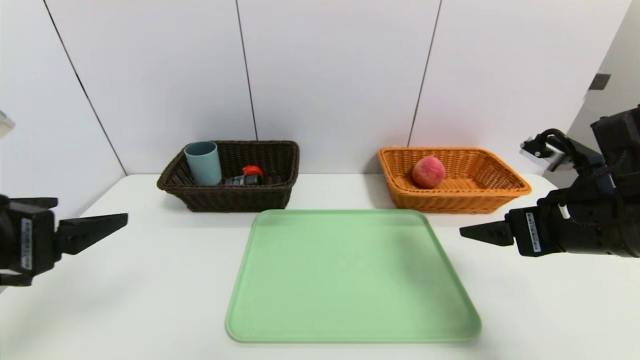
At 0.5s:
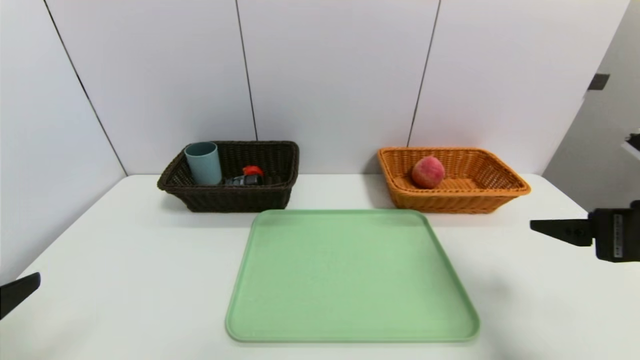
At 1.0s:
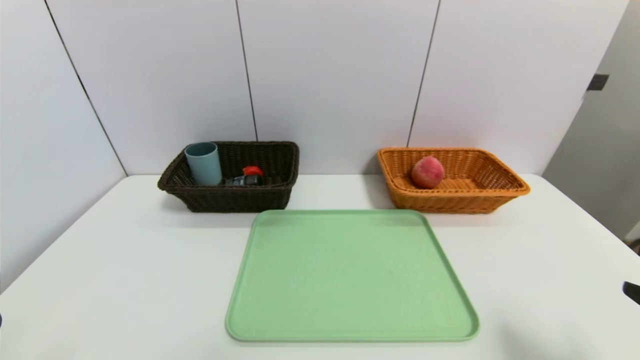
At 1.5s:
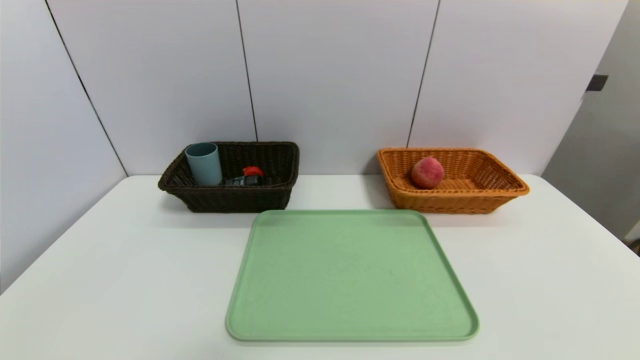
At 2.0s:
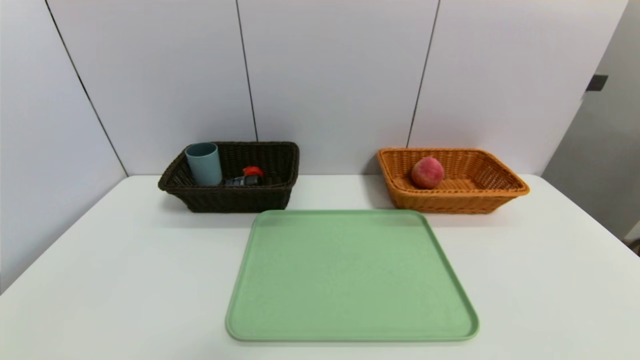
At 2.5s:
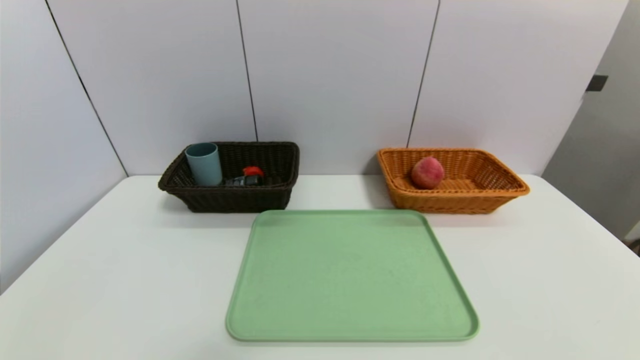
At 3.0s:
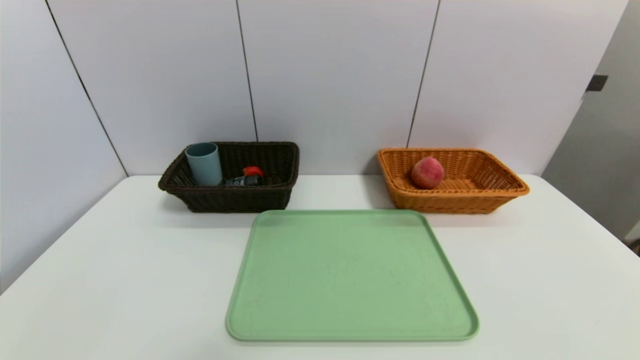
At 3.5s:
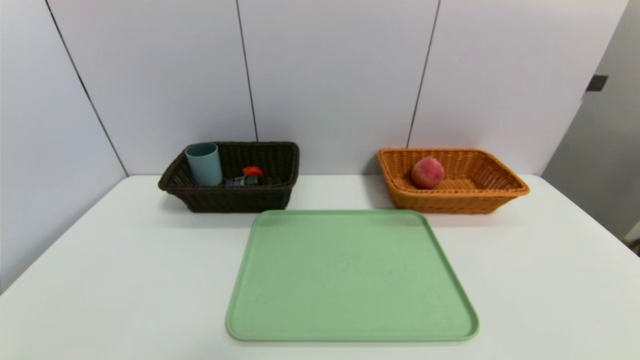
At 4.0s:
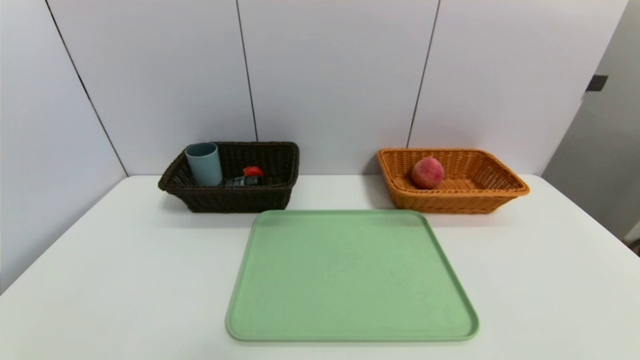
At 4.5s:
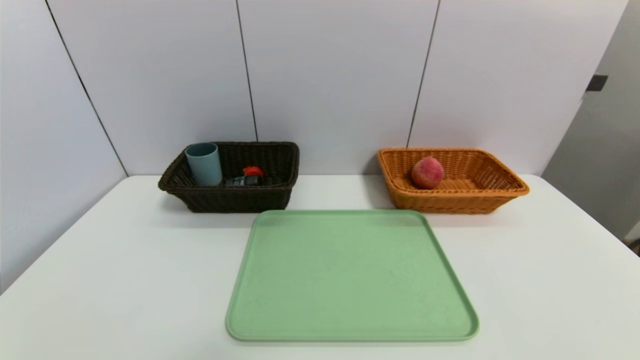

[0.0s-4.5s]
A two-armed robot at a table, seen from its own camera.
Task of the whole recording: place the food in the right basket with the right gripper, and place the non food items in the left basket with the left gripper.
0.0s to 2.0s: The right gripper goes roughly 25 cm backward and downward. Meanwhile the left gripper is displaced backward and downward by approximately 15 cm.

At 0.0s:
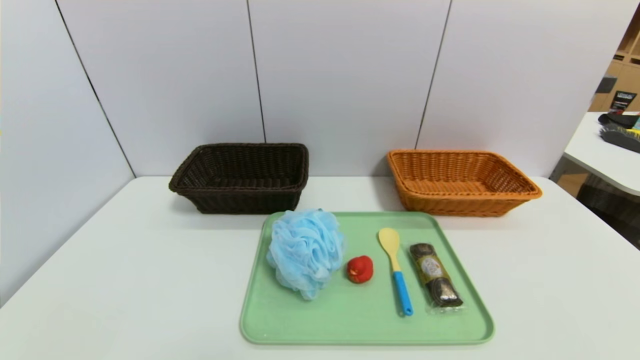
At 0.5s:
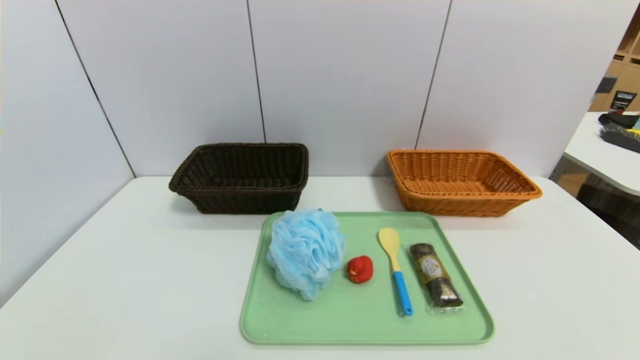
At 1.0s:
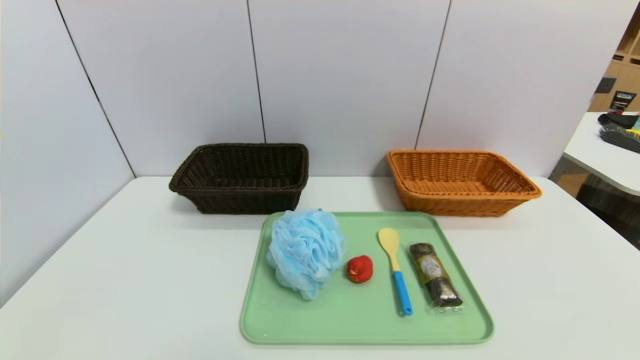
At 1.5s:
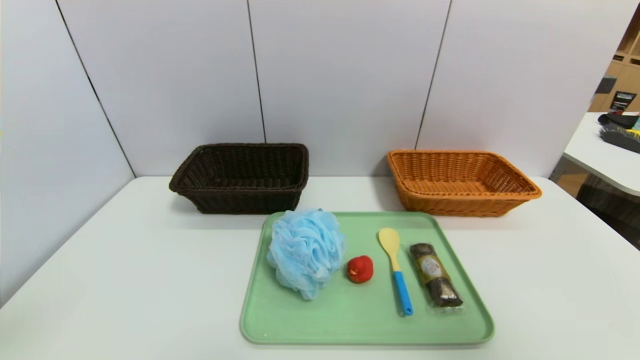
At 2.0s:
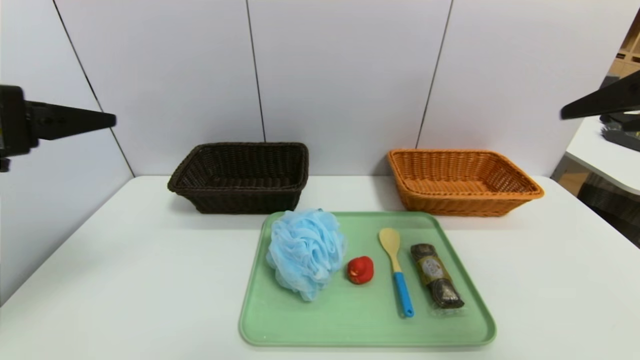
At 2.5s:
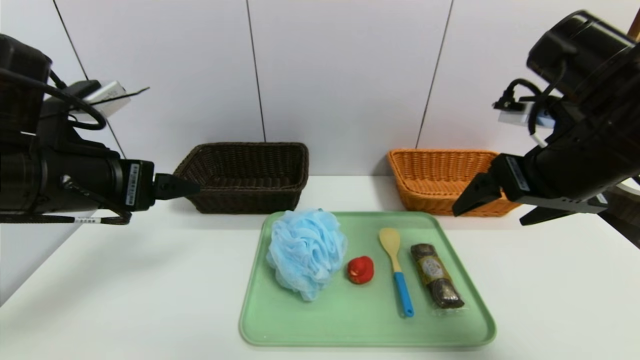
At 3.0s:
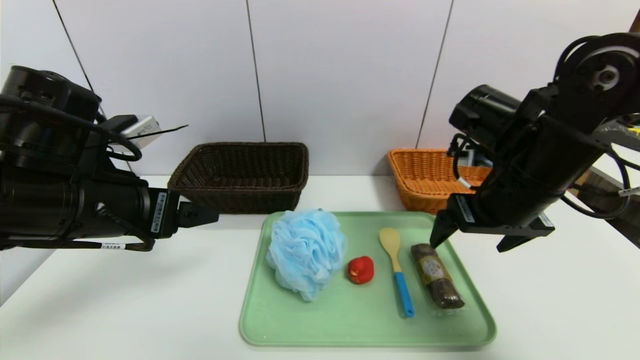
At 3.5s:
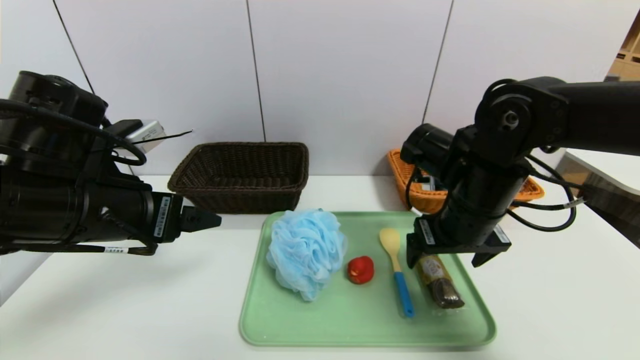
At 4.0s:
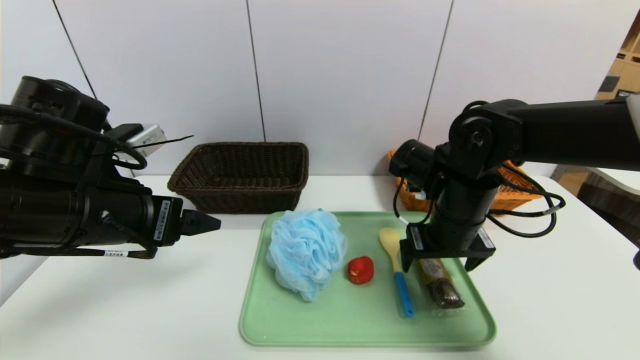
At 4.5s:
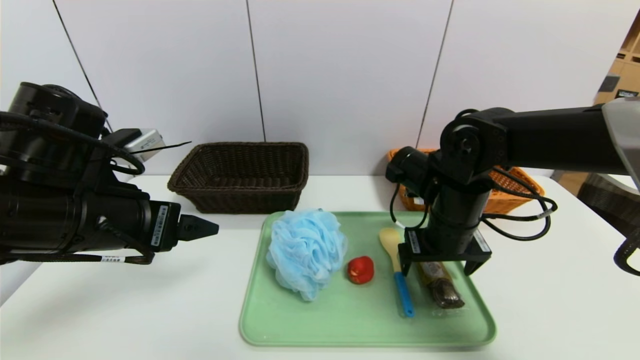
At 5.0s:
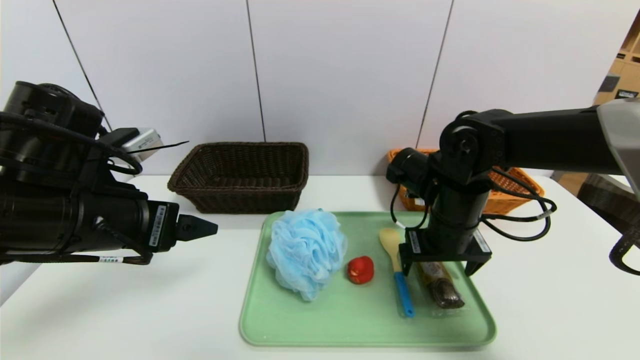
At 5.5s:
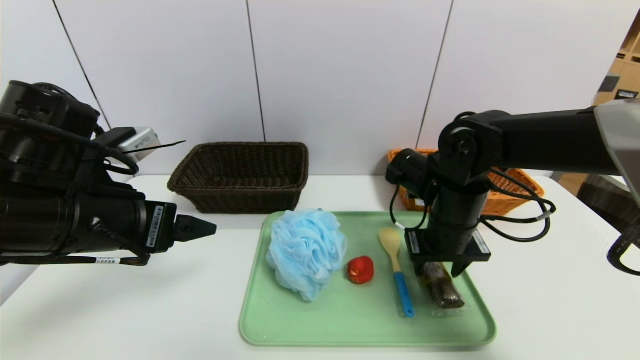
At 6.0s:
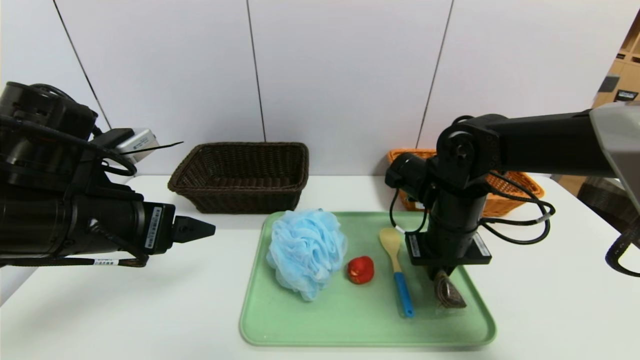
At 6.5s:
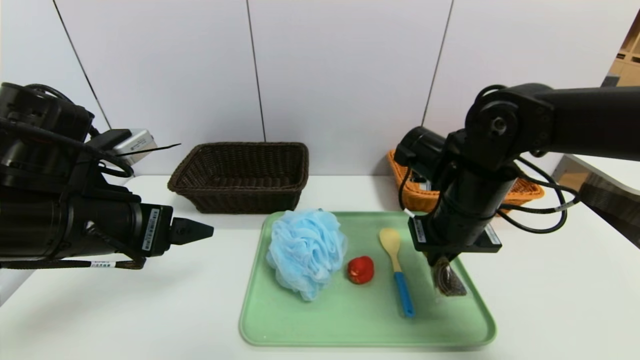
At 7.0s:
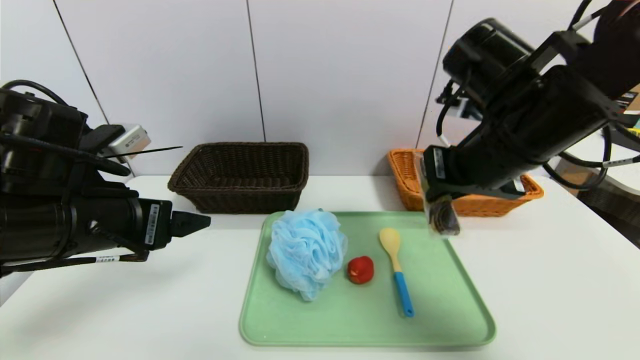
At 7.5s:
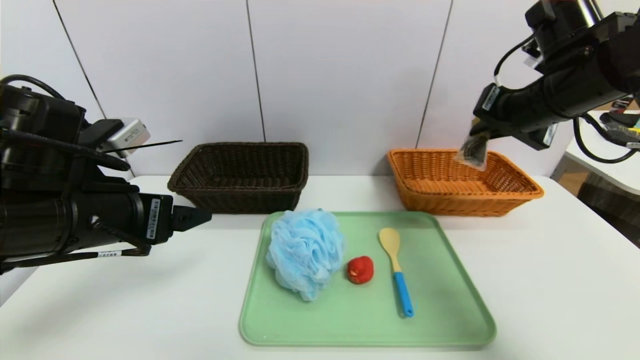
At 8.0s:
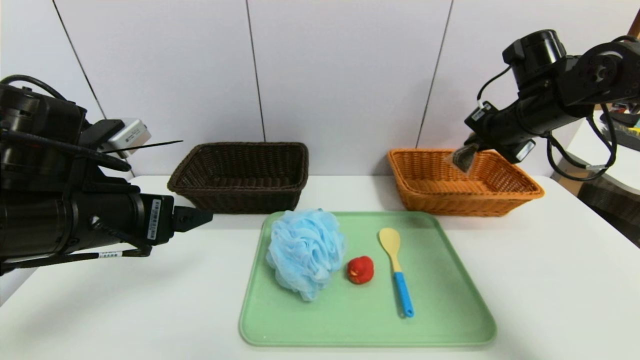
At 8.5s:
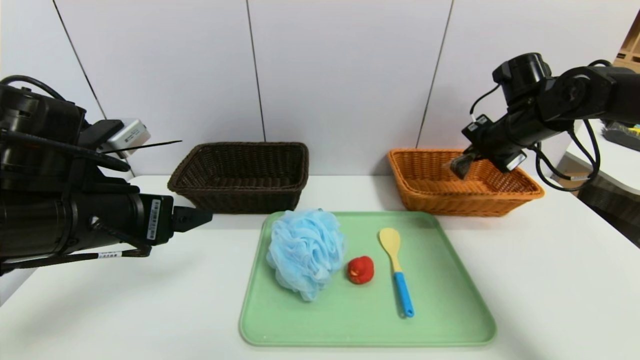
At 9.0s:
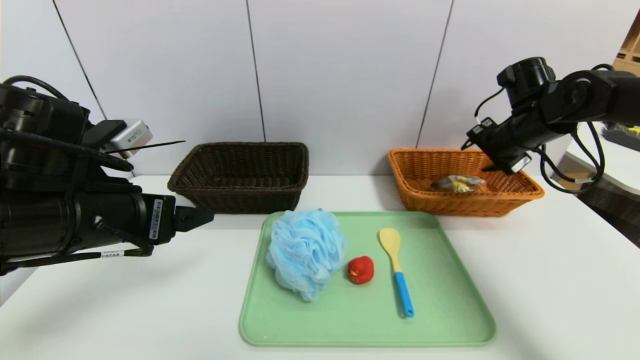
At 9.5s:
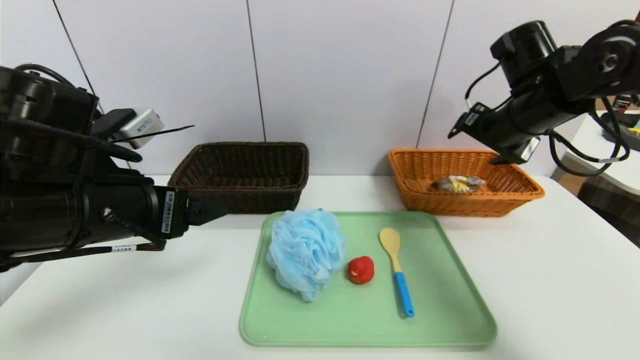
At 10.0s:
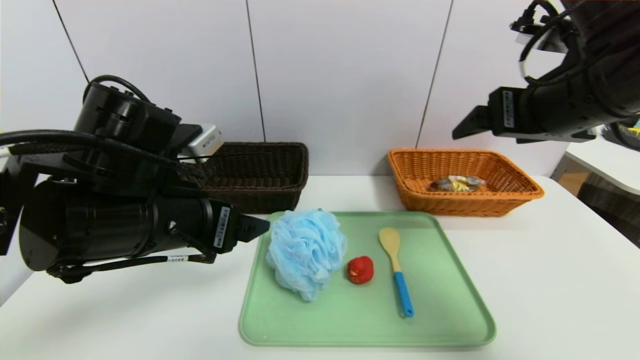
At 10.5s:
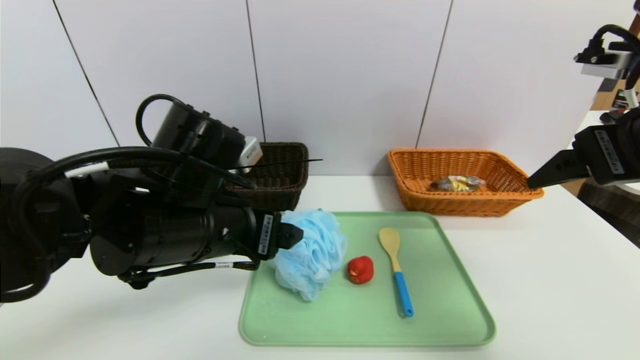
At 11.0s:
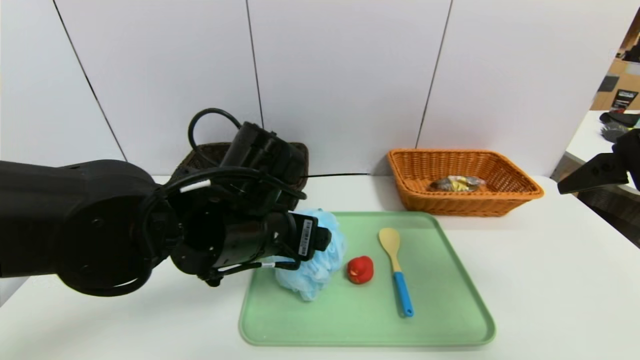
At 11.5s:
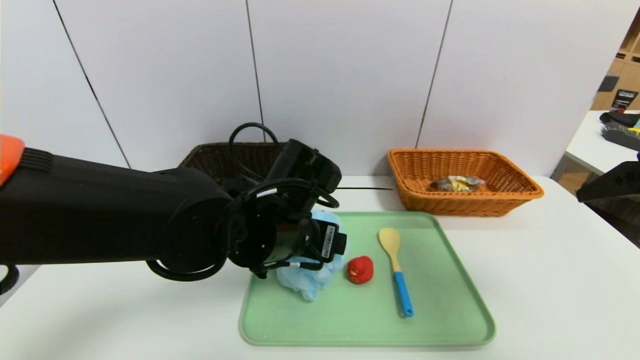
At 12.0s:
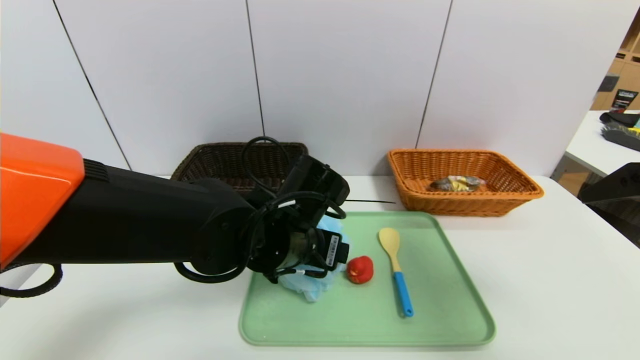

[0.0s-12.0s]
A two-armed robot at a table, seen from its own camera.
Task of the whole recording: place the food in the right basket with the right gripper, and place the non food items in the left basket with the left gripper.
Step, 0.0s to 9.0s: Grasp the chocolate and put it in the right basket.
0.0s to 2.0s: The grippers both shift upward and forward by roughly 35 cm.
2.0s to 4.0s: The left gripper goes about 15 cm downward, to the right and forward. Meanwhile the right gripper goes approximately 30 cm downward, forward and to the left.
4.0s to 6.0s: The right gripper closes up.
6.0s to 8.0s: The right gripper travels to the right, upward and forward by some 20 cm.
8.0s to 10.0s: The right gripper moves backward, upward and to the left, approximately 15 cm, and opens. The left gripper moves to the right, approximately 5 cm.
10.0s to 12.0s: The right gripper is displaced backward and to the right by roughly 10 cm; the left gripper shifts about 15 cm to the right, downward and forward.

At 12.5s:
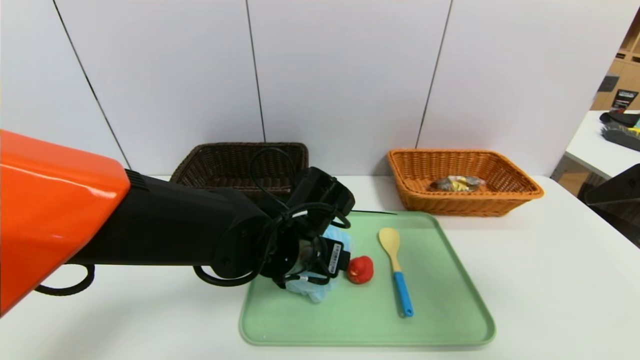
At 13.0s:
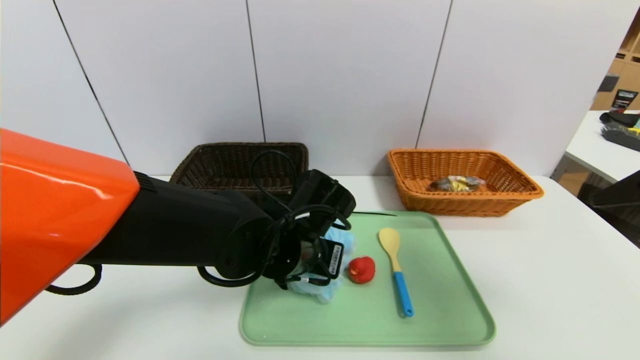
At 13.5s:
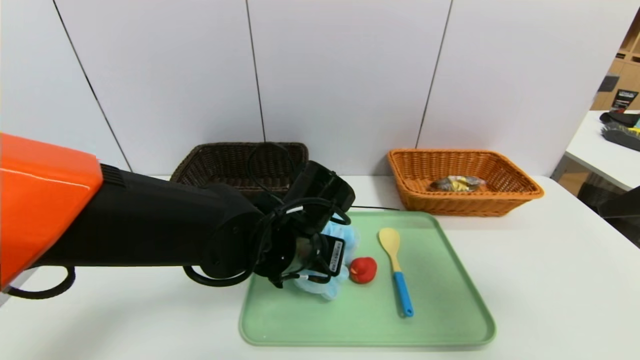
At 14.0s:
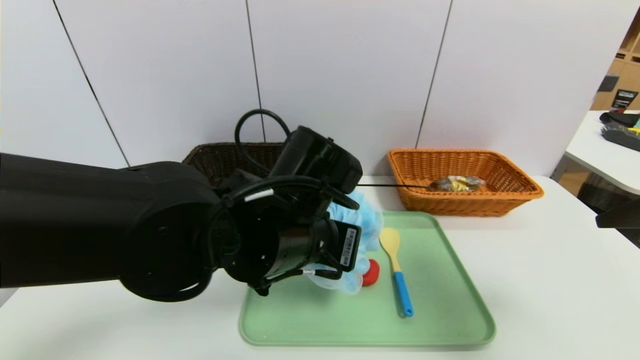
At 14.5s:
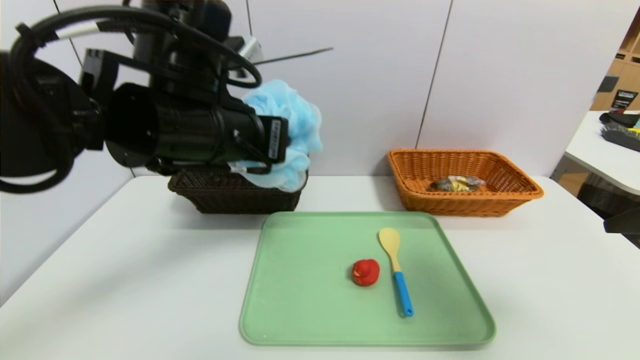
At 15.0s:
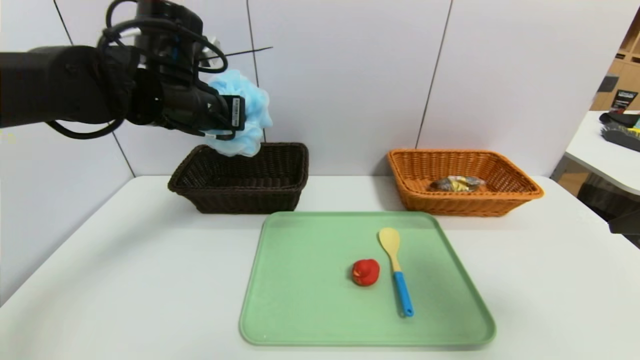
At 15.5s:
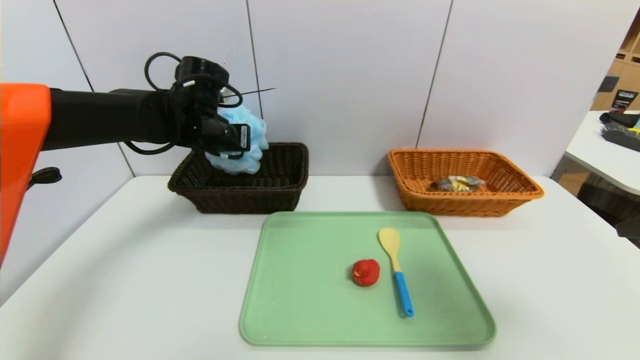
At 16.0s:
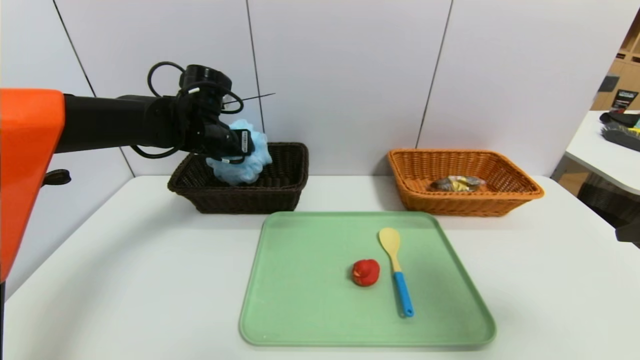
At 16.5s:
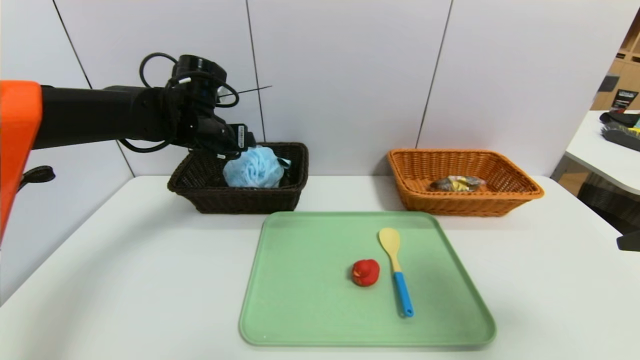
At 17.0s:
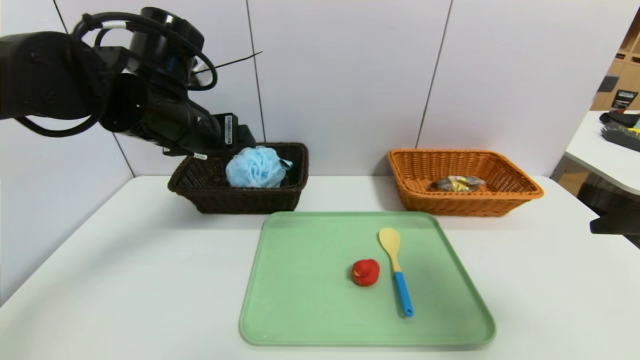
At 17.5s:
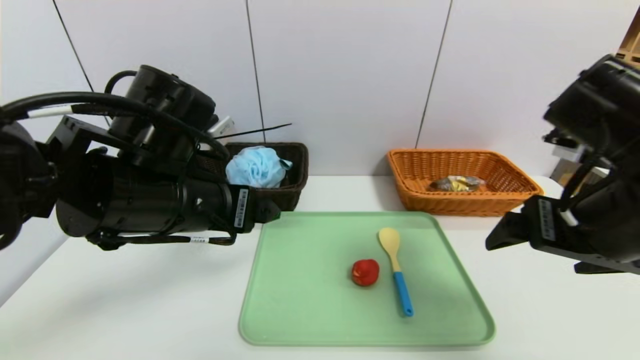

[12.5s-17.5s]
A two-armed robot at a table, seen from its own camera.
Task of the whole recording: place the food in the right basket with the right gripper, and place the non food items in the left basket with the left gripper.
Step, 12.5s to 16.0s: Grasp the shower sphere and put it in the left basket.
12.5s to 15.0s: The left gripper shifts roughly 25 cm upward, to the left and forward, and closes its fingers.
15.0s to 17.5s: The left gripper moves backward, some 15 cm, and opens up; the right gripper is displaced to the left, forward and downward by approximately 10 cm.
